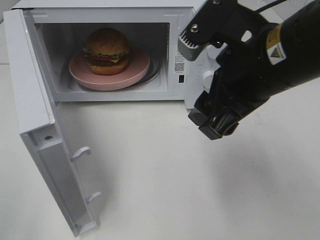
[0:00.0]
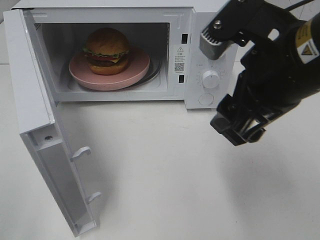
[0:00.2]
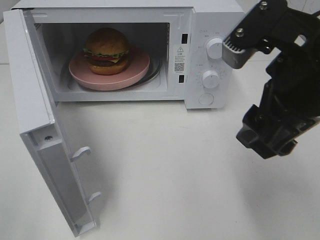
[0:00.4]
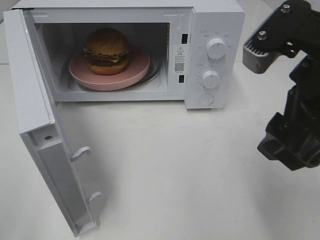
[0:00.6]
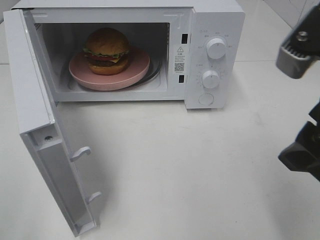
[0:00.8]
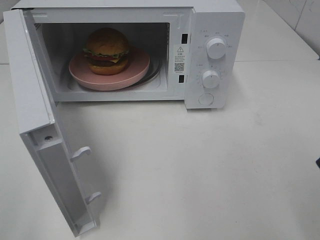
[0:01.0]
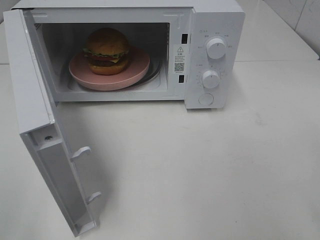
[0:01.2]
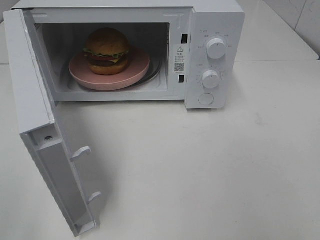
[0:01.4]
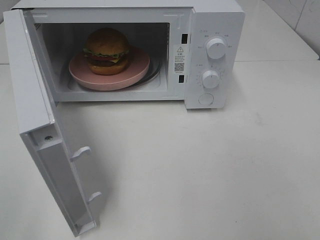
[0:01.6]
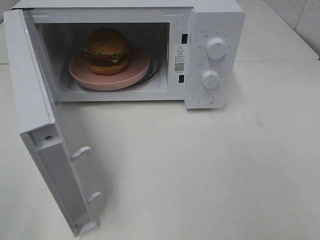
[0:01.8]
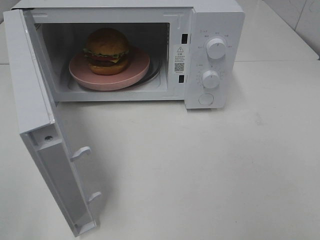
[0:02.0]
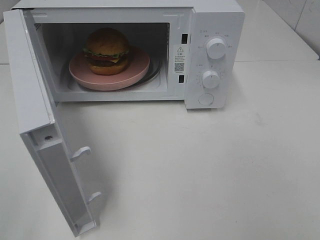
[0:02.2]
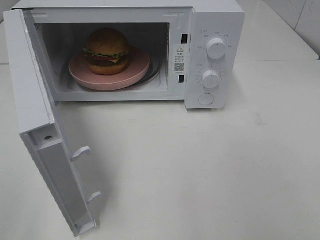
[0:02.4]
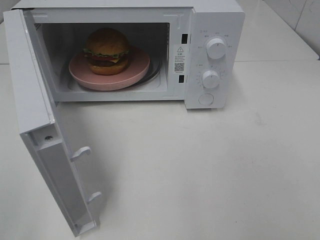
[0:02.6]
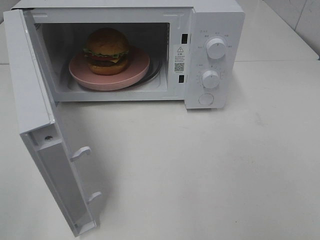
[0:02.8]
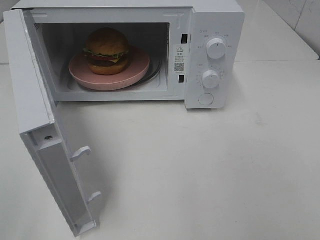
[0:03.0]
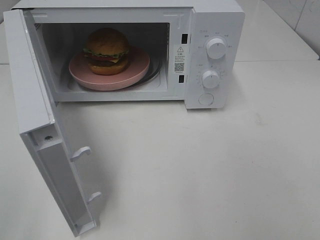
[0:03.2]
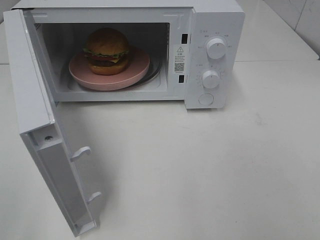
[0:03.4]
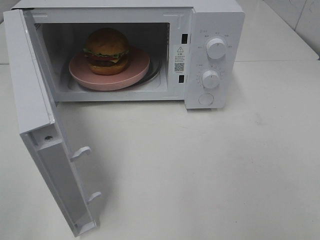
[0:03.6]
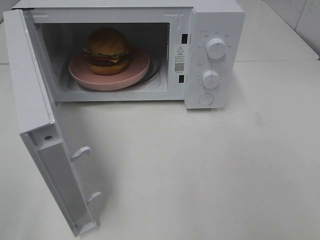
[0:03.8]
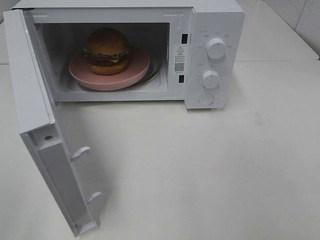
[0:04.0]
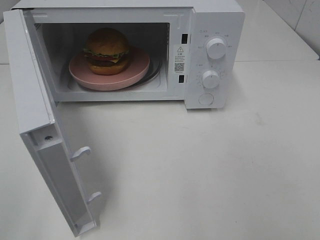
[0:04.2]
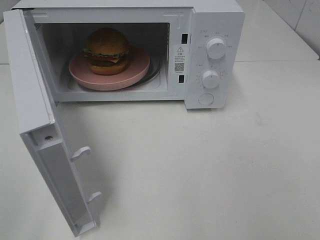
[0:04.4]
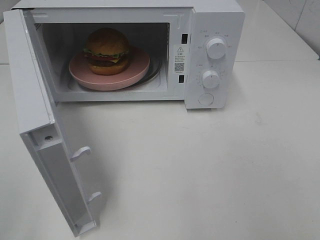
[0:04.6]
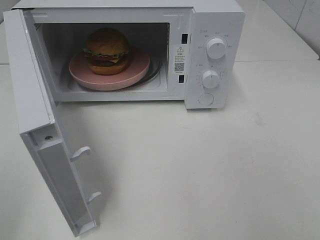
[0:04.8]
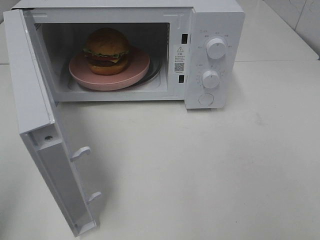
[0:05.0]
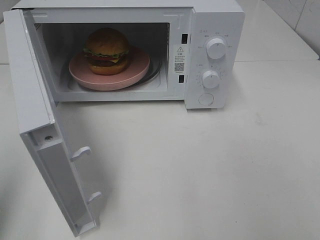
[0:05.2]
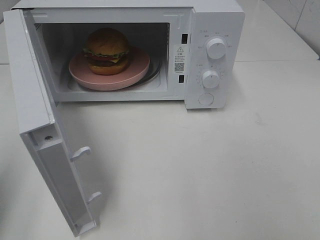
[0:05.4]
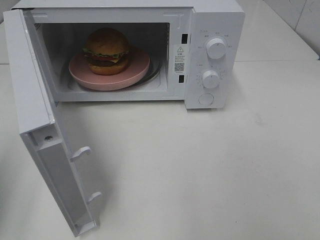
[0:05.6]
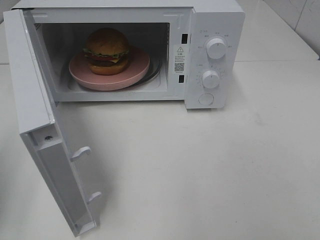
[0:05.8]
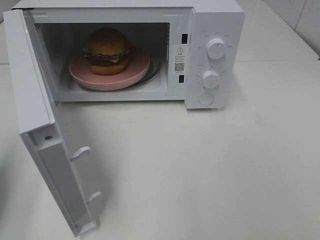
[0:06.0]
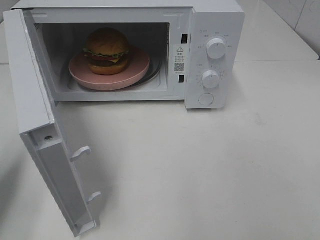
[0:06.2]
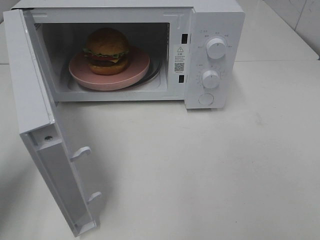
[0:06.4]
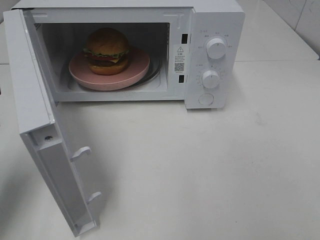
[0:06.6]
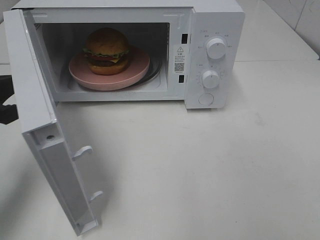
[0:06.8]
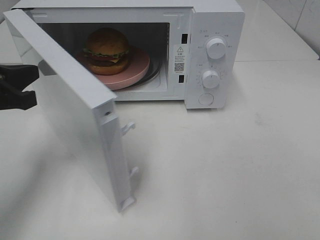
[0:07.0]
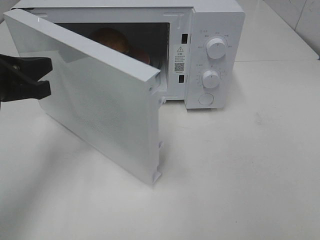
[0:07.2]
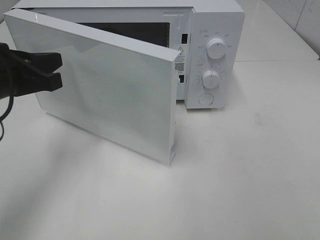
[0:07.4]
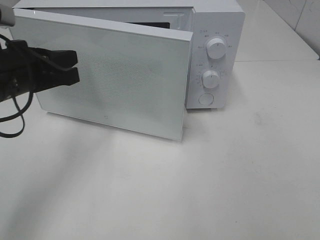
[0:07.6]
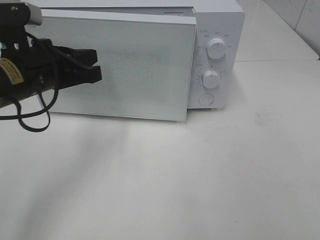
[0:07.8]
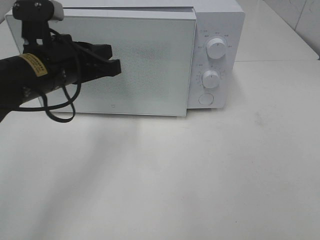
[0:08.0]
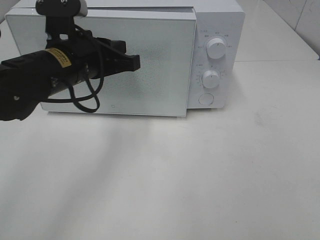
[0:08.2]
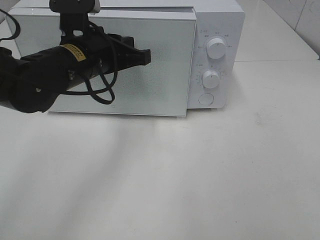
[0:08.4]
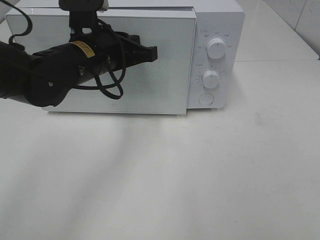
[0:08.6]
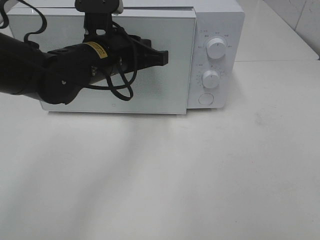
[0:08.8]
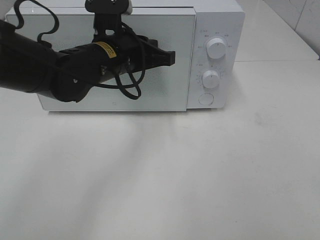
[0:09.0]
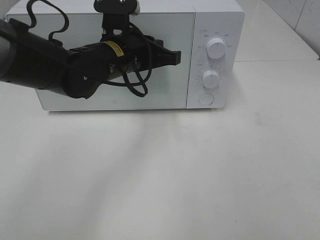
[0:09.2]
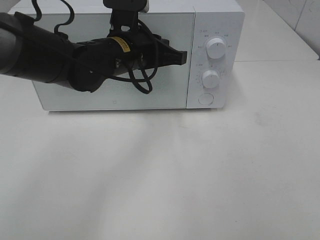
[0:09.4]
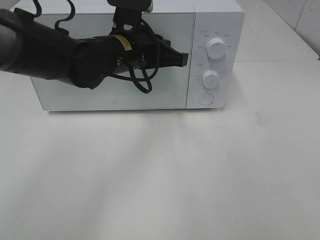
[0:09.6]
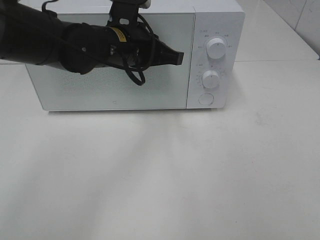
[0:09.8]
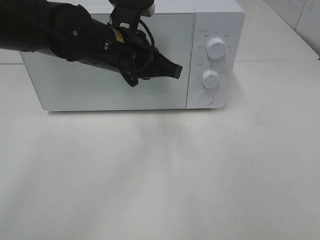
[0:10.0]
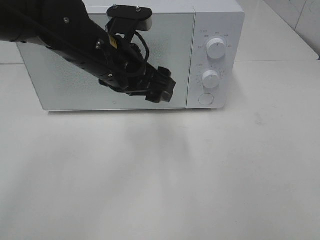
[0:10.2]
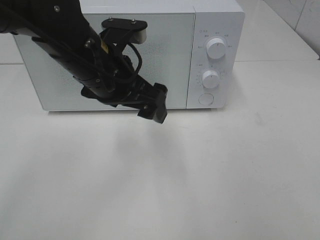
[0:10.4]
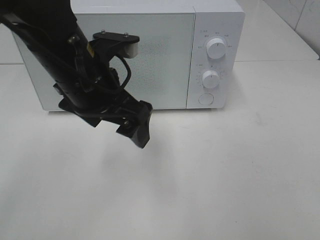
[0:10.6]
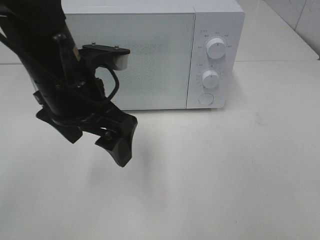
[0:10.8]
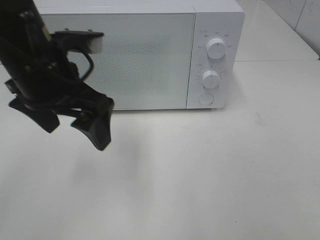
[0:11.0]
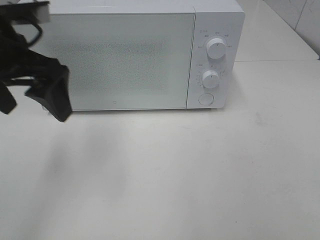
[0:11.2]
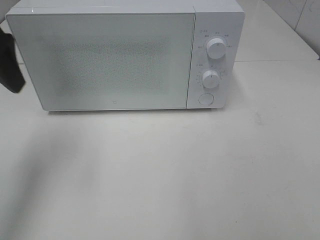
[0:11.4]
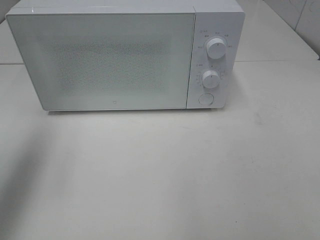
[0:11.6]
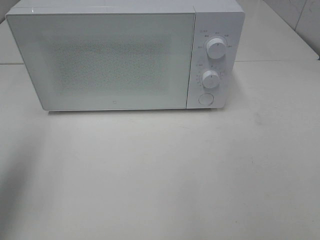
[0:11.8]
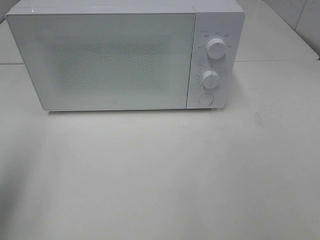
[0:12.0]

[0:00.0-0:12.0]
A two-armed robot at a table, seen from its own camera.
Task of the whole recording: Heat the burger.
Step, 0:00.0 to 0:09.8: Left hand: close the microwave door.
0:00.0 to 0:01.6: The right gripper moves to the right and backward, approximately 25 cm.
0:03.0 to 0:04.4: The two grippers keep their place.
0:04.4 to 0:06.0: The left gripper shifts approximately 20 cm forward and downward, and closes up.
0:06.0 to 0:07.6: The left gripper is displaced to the right and forward by some 15 cm.
0:07.6 to 0:09.0: The left gripper travels to the right and forward by about 15 cm.
0:09.0 to 0:10.4: The left gripper goes roughly 5 cm backward, and opens.
0:10.4 to 0:12.0: The left gripper moves to the left and backward, approximately 30 cm.

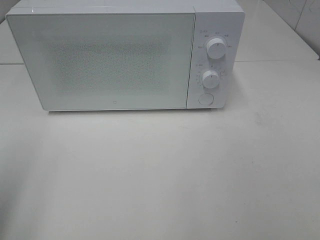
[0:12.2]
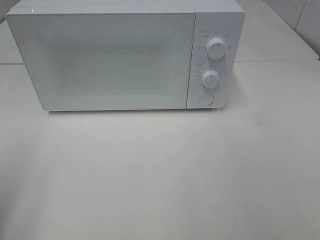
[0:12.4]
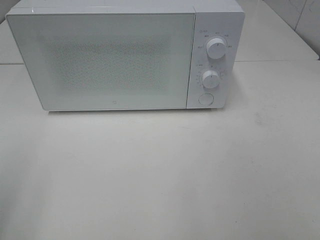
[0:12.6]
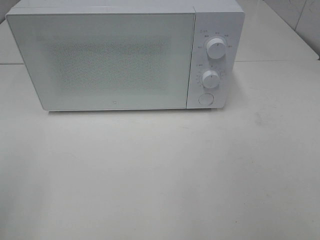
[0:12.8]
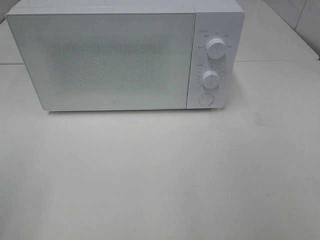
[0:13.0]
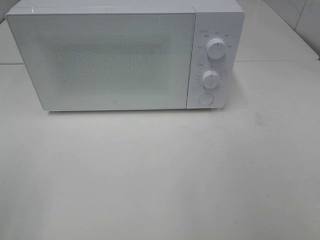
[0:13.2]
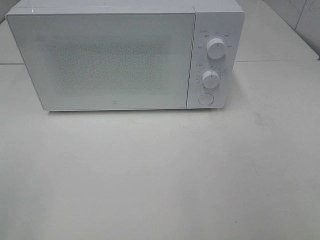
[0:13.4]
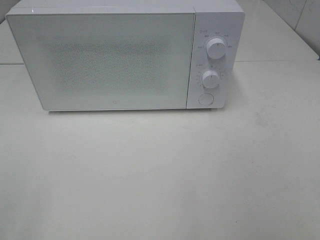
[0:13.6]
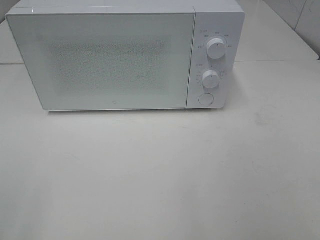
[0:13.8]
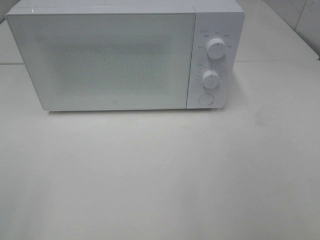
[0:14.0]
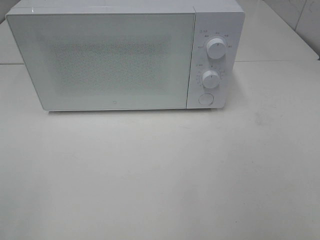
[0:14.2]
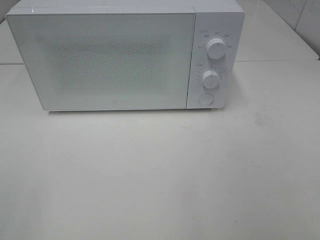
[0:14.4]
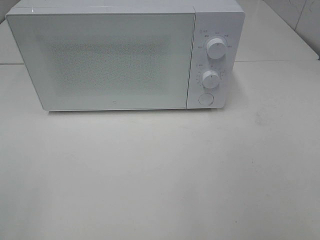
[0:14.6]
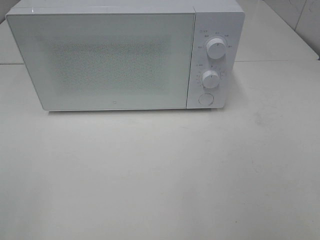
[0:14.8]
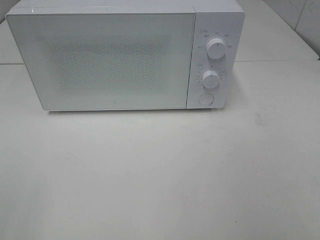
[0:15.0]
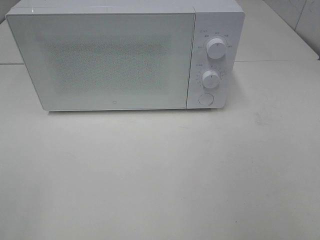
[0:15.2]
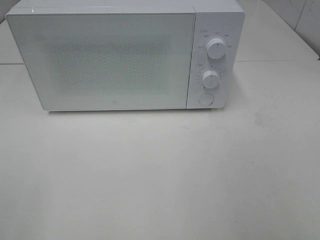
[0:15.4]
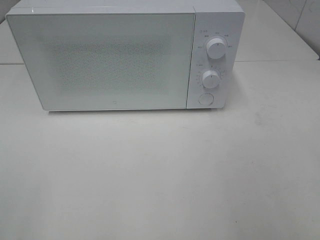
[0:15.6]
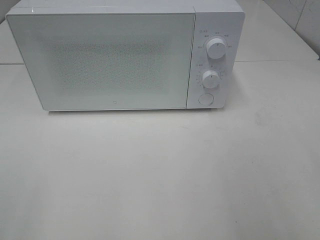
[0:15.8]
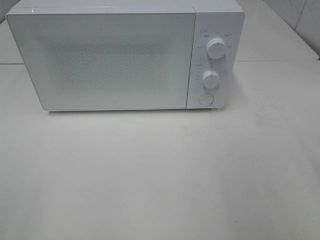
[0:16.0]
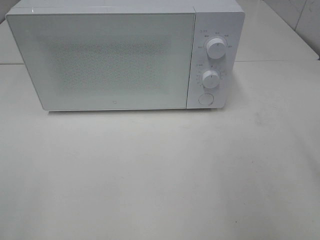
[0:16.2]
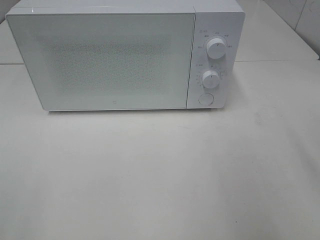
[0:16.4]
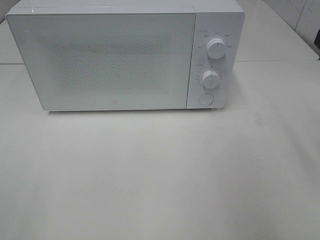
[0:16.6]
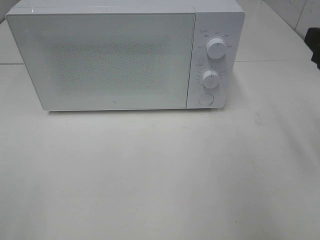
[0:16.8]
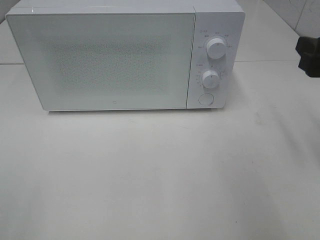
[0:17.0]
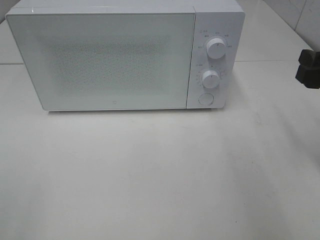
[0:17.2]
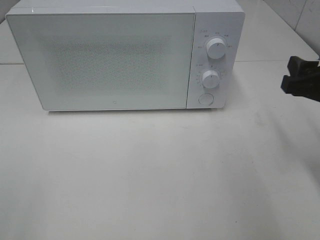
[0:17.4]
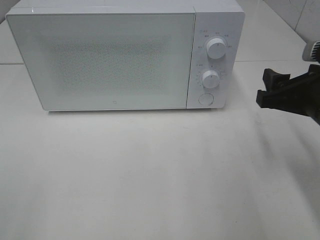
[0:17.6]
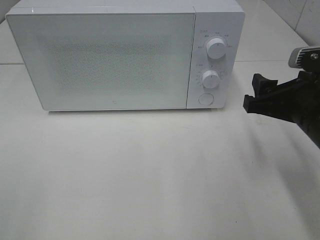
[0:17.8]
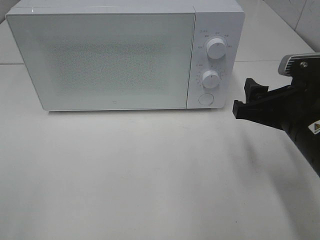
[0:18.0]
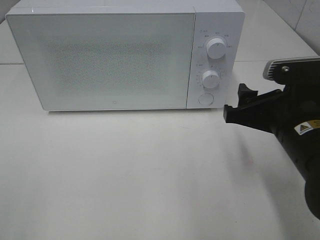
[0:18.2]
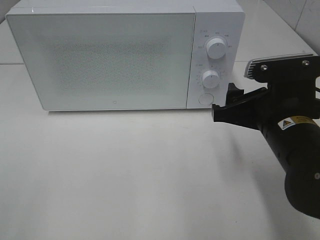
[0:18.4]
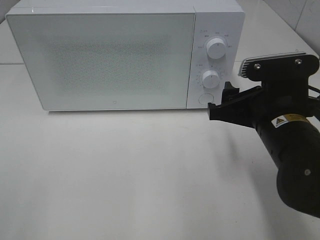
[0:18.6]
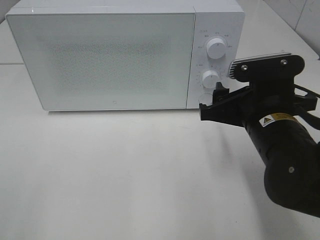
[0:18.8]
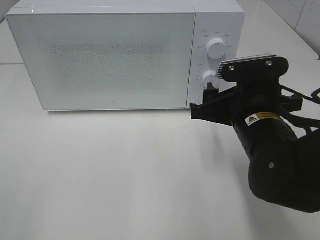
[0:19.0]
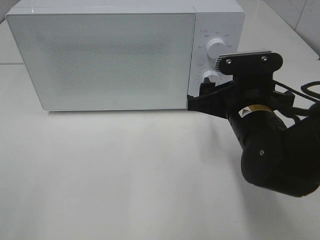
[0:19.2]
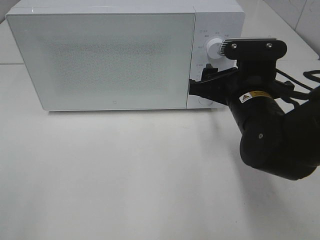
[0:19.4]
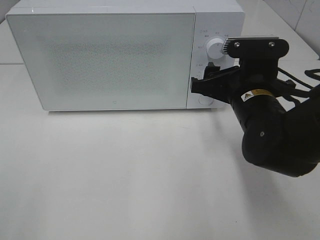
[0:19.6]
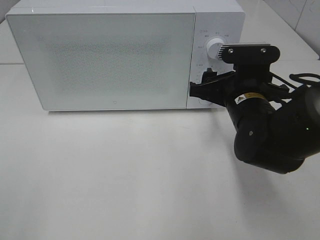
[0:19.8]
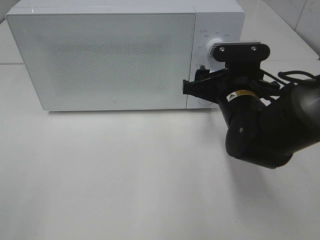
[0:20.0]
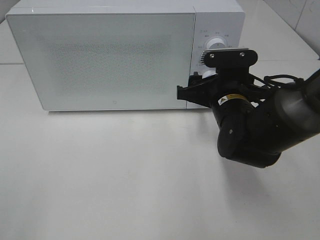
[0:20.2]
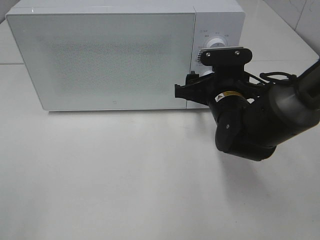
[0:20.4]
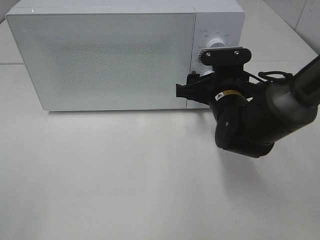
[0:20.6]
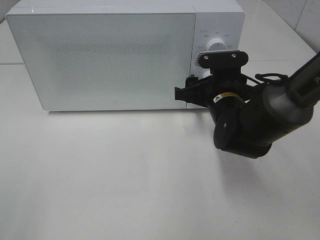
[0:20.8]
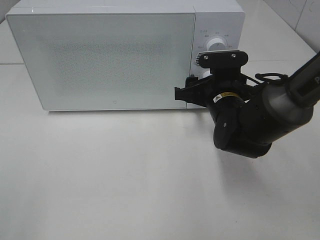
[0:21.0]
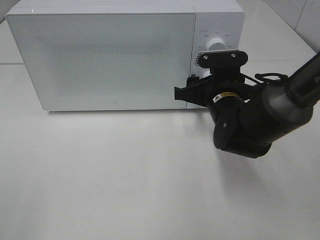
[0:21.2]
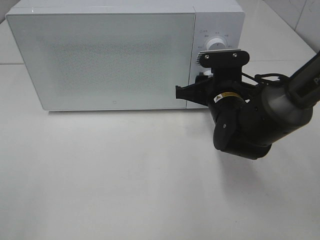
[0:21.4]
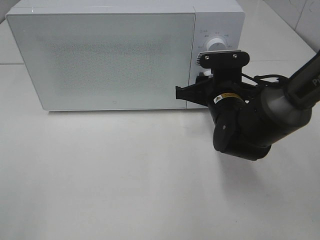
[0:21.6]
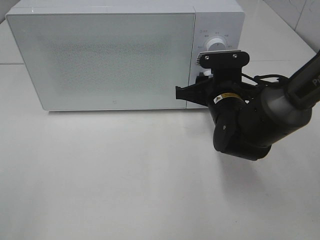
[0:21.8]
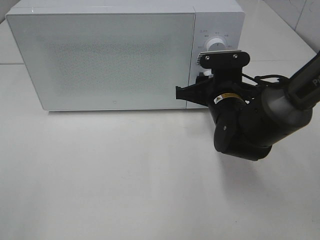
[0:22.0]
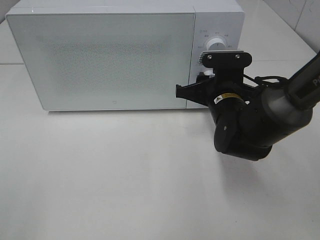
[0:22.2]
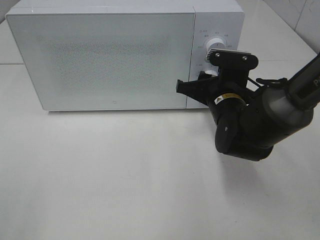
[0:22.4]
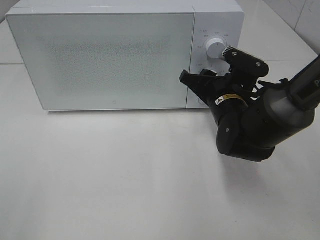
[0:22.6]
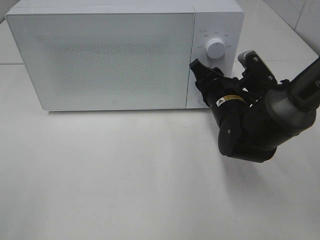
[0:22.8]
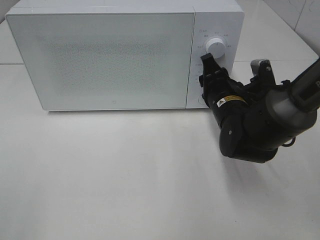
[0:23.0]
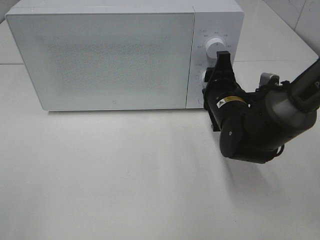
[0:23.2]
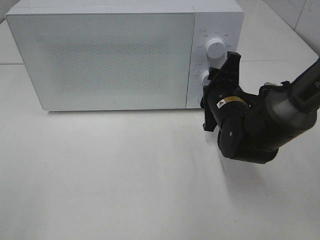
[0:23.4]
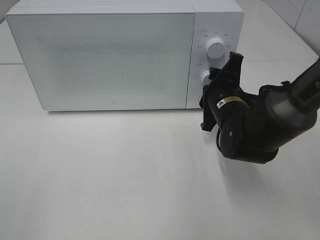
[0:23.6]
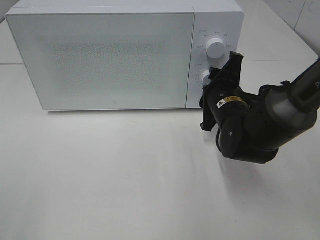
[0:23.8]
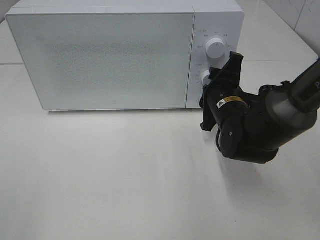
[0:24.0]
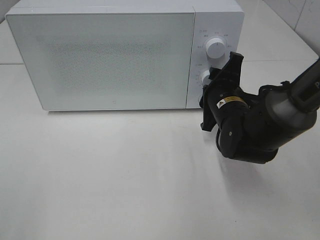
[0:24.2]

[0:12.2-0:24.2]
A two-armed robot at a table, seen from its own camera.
Task of the whole recording: Heat the burger.
0:16.6 to 0:18.2: The right gripper travels downward and to the left by about 15 cm.
0:18.2 to 0:19.8: The right gripper heads forward, covering approximately 10 cm.
0:19.8 to 0:21.2: The right gripper moves approximately 5 cm.
